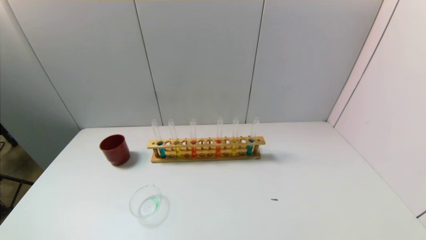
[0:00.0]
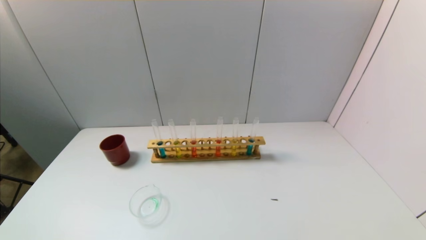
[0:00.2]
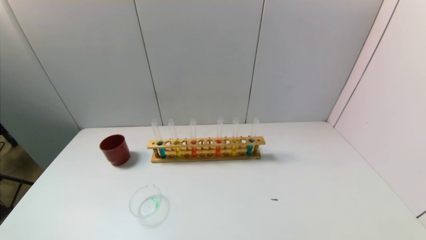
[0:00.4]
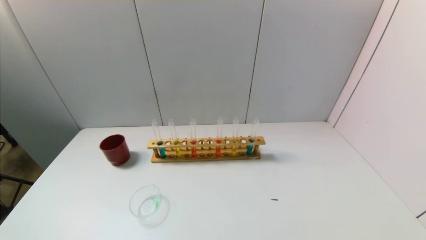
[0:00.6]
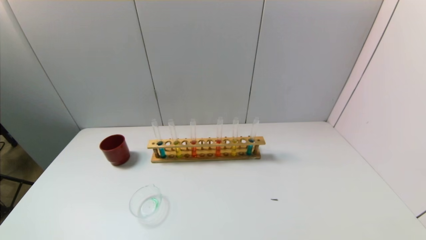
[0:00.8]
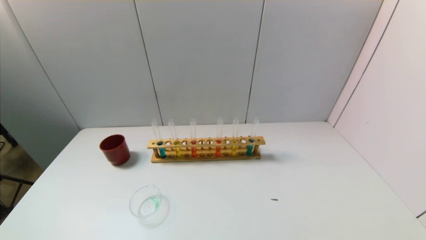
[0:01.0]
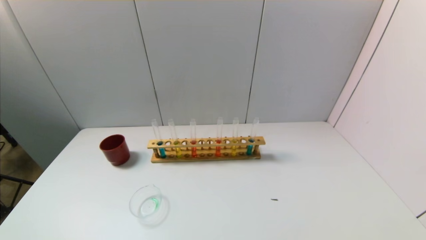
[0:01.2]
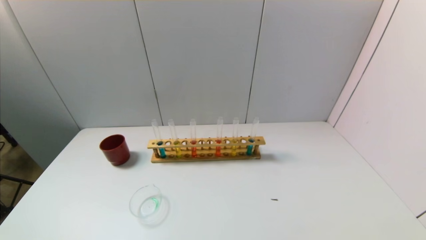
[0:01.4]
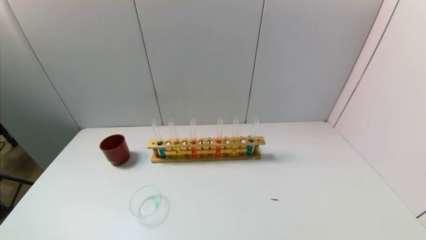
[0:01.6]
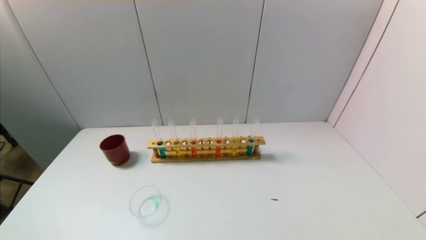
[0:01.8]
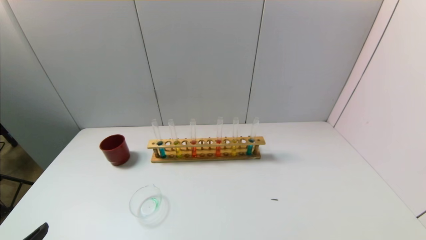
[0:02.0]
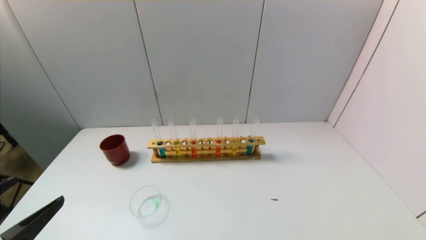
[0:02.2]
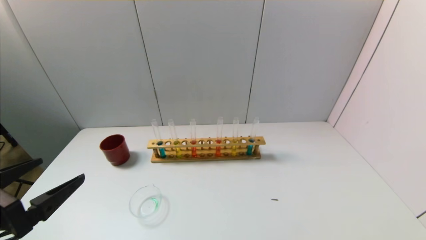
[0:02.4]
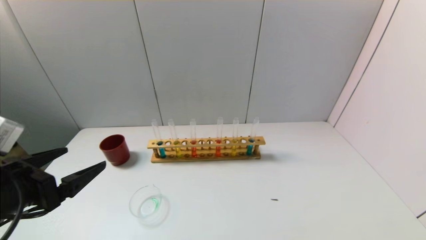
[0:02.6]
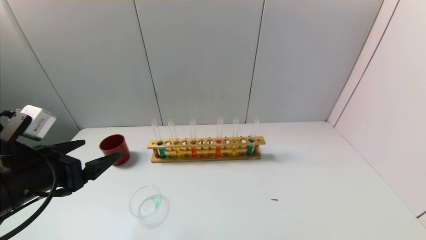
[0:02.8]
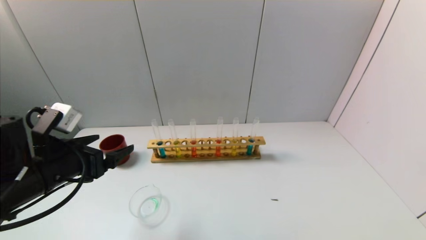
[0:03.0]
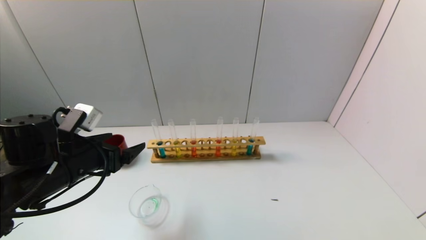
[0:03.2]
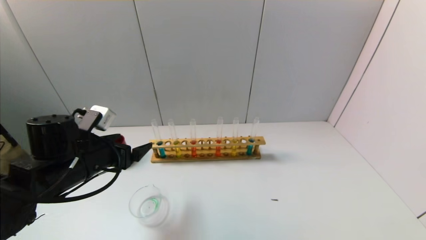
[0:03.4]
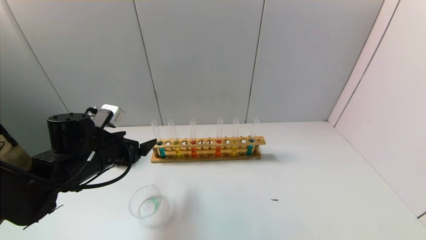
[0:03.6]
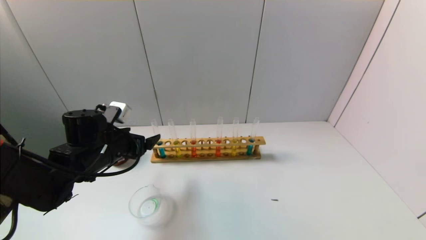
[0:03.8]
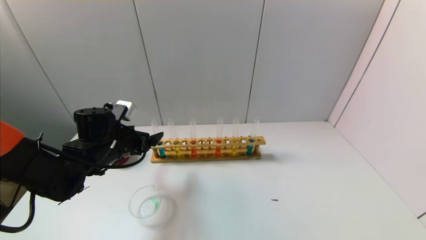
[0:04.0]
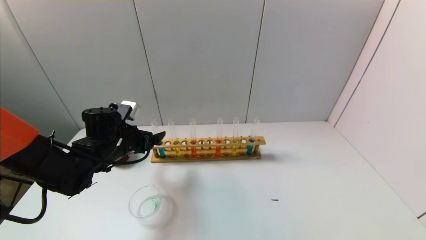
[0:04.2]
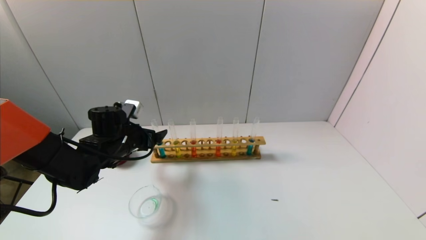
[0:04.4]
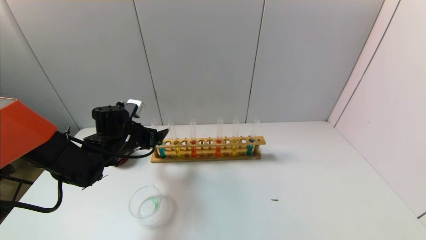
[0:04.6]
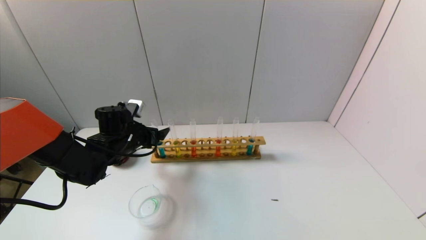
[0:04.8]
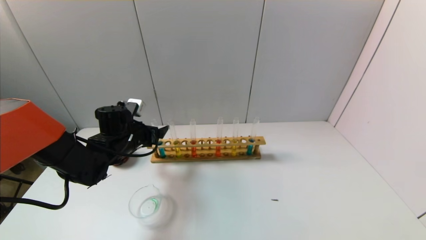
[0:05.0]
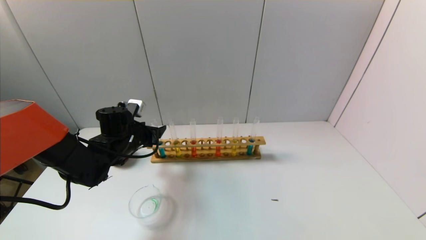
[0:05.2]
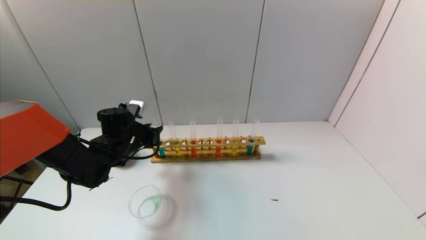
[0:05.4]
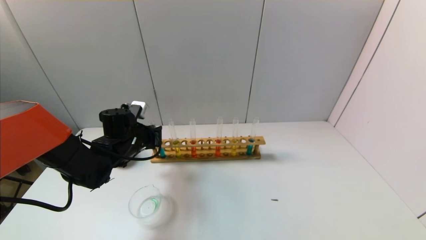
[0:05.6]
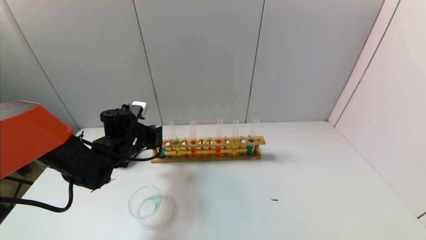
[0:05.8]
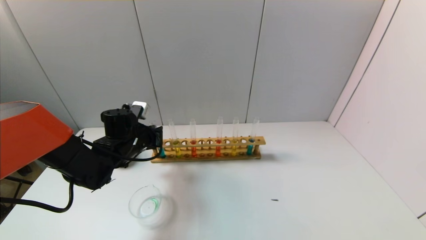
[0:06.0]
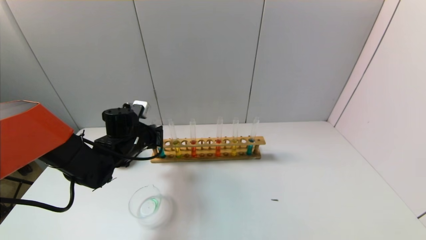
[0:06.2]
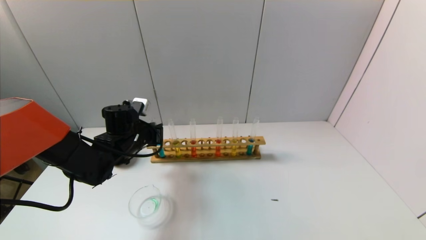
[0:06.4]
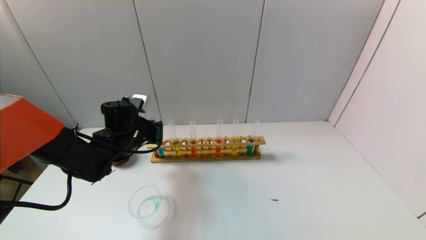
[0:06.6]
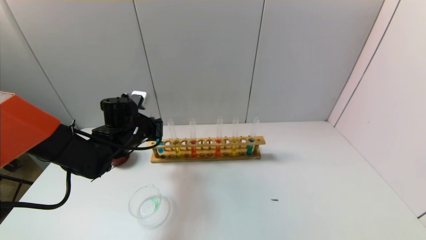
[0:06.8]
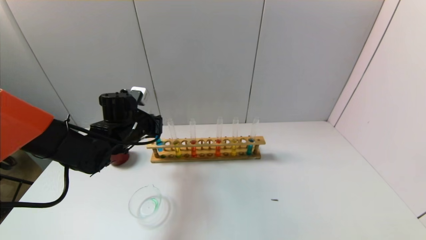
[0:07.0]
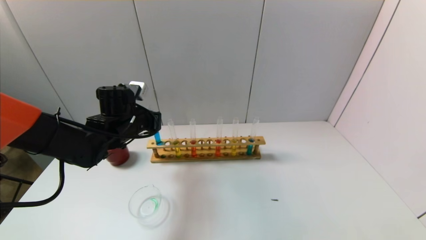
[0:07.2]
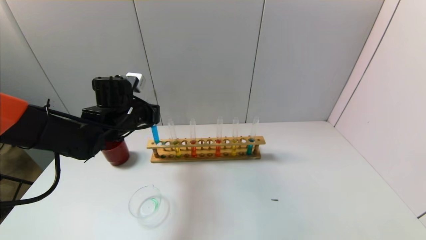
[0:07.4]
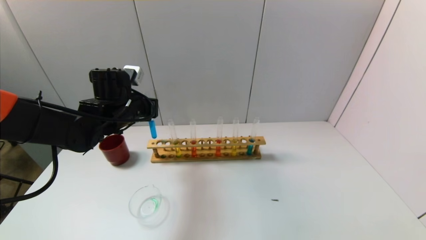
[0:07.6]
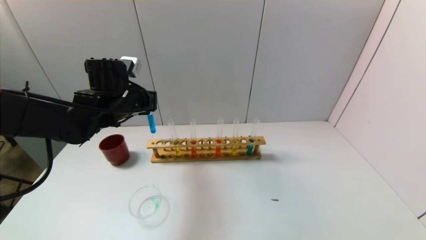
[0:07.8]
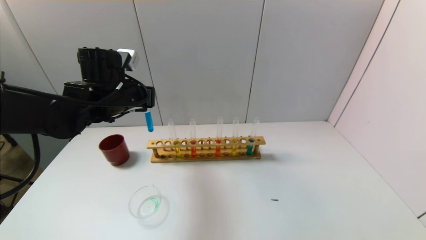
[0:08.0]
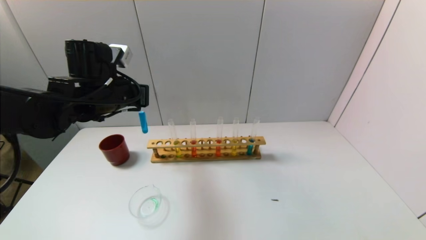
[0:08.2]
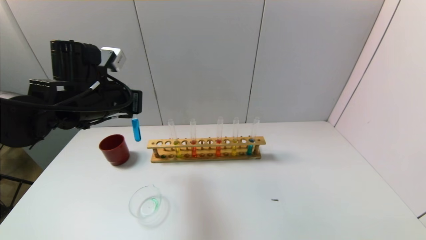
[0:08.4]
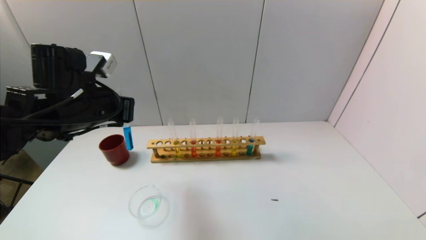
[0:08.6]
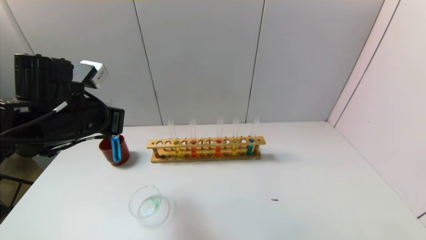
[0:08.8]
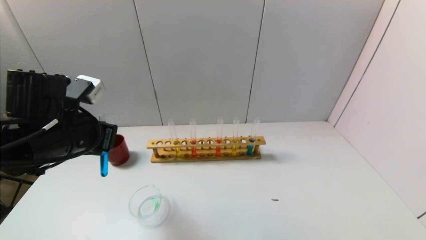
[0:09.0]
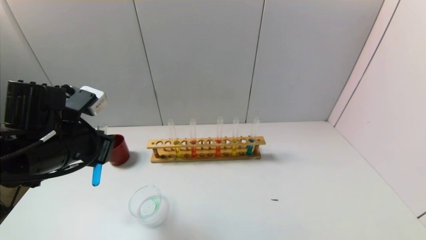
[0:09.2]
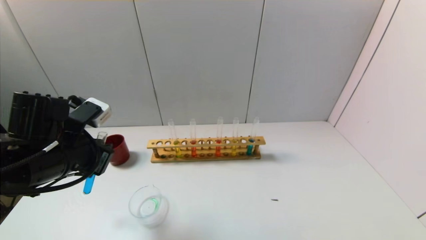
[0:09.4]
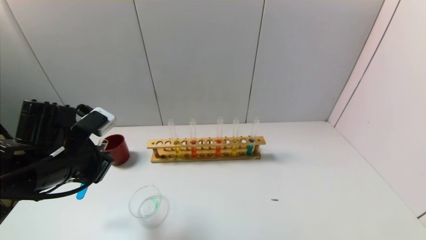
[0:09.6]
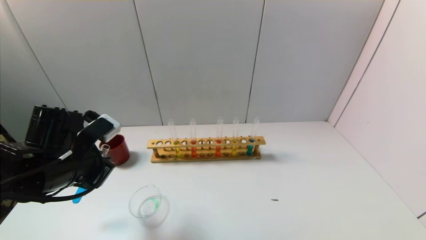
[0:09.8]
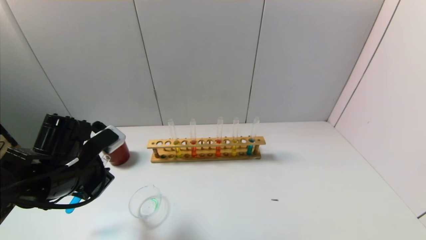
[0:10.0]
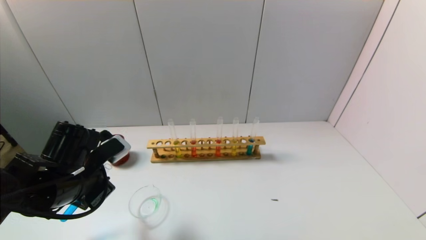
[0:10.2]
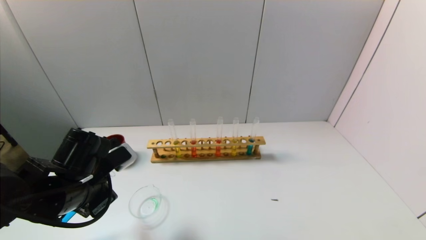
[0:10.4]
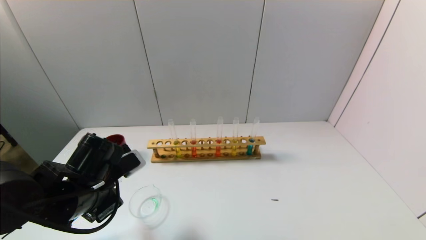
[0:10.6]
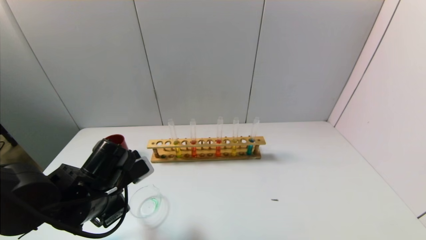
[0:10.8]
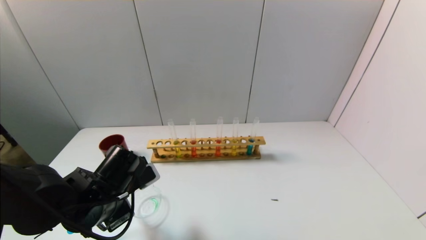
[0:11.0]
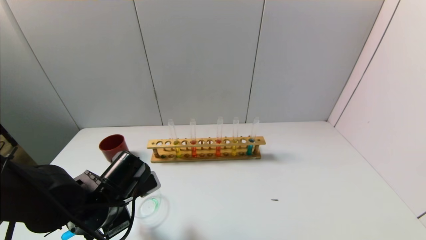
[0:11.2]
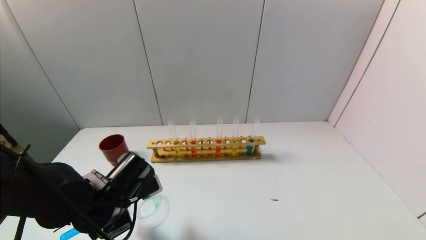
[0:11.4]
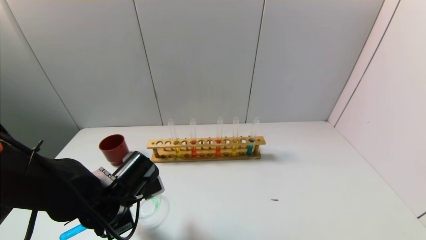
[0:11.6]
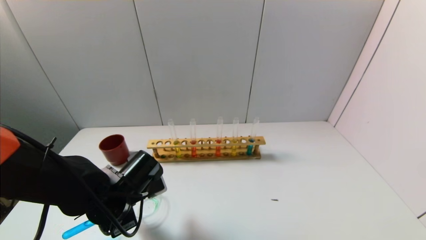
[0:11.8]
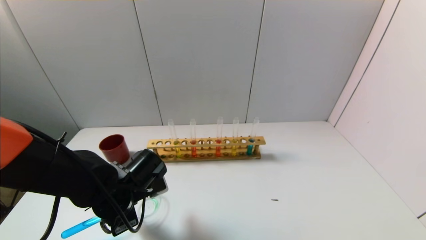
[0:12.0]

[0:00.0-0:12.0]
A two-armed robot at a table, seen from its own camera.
Task of the whole recording: pick up the test tube with yellow pigment and the test tube with blue pigment by grippers and pour them into the beaker.
Step, 0:00.0 to 0:05.6: Grasp the blue reagent with the left gripper.
0:01.6 to 0:03.0: The left gripper moves forward, some 20 cm.
0:03.0 to 0:04.4: The left gripper goes about 15 cm forward and downward.
0:04.4 to 0:06.0: The left gripper closes its fingers.
0:06.0 to 0:07.6: The left gripper travels upward by about 10 cm.
0:07.6 to 0:09.0: The left gripper heads backward, covering some 15 cm.
0:09.0 to 0:10.4: The left gripper shifts some 10 cm downward.
0:10.4 to 0:12.0: The left gripper is displaced downward and to the right by some 10 cm.

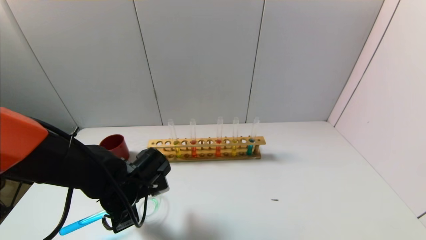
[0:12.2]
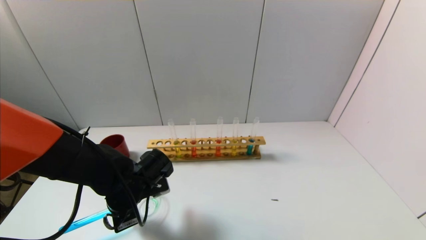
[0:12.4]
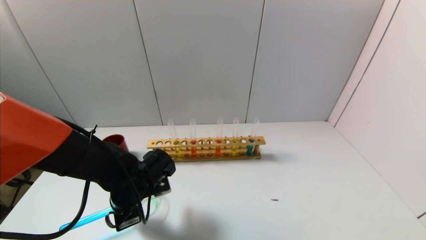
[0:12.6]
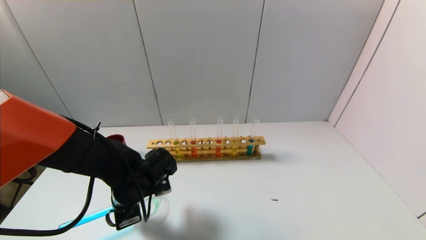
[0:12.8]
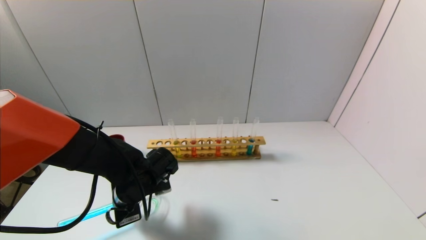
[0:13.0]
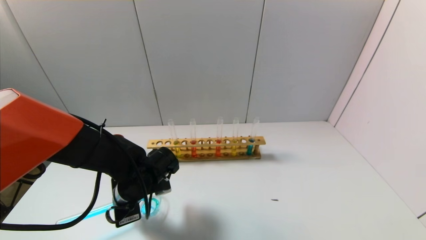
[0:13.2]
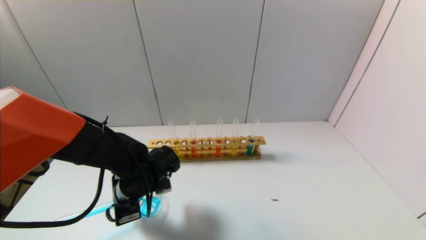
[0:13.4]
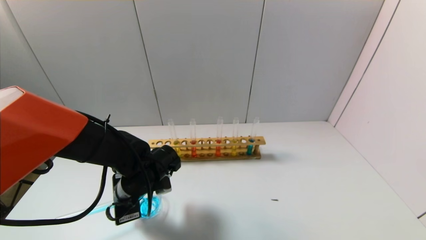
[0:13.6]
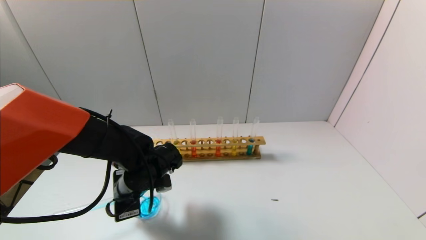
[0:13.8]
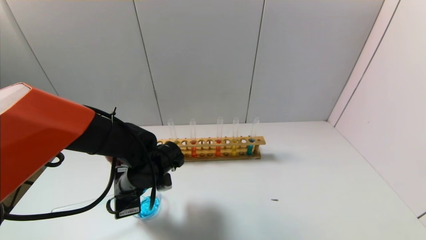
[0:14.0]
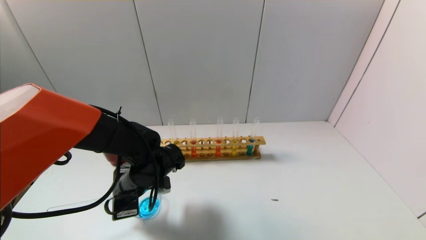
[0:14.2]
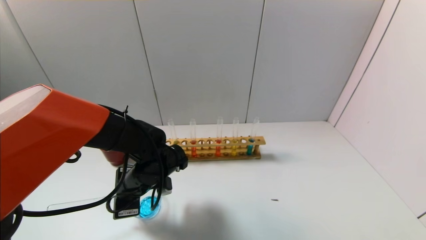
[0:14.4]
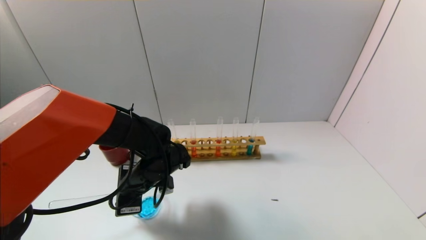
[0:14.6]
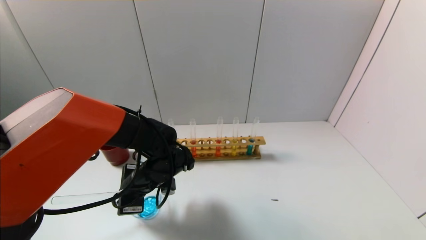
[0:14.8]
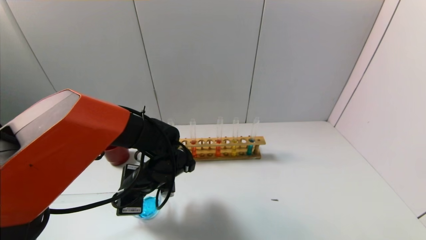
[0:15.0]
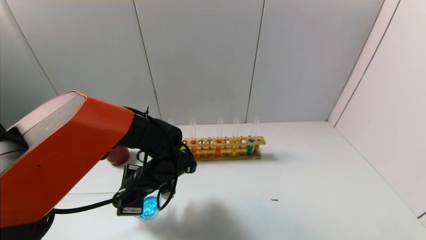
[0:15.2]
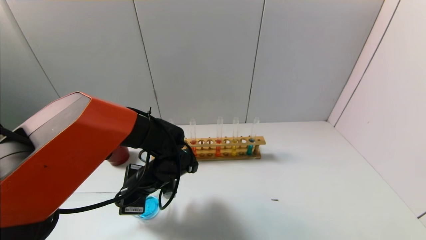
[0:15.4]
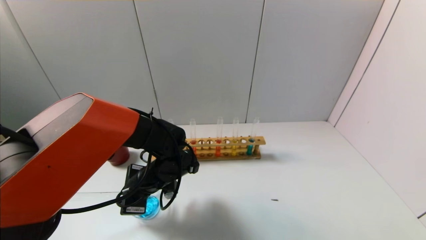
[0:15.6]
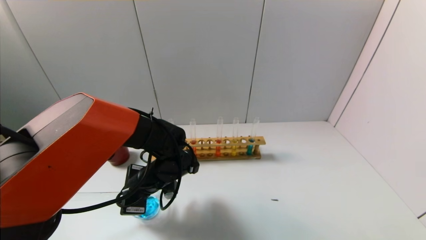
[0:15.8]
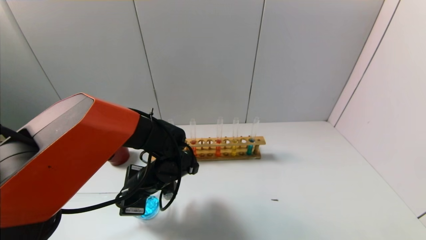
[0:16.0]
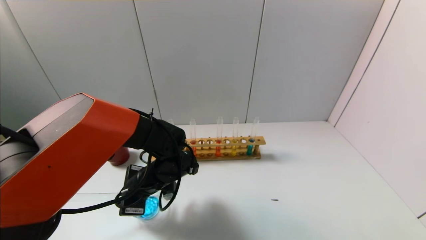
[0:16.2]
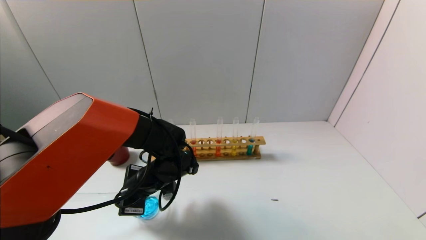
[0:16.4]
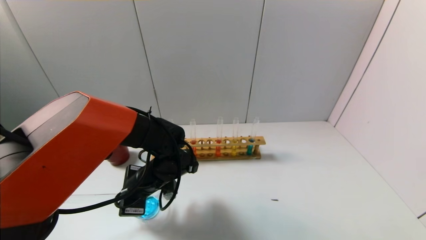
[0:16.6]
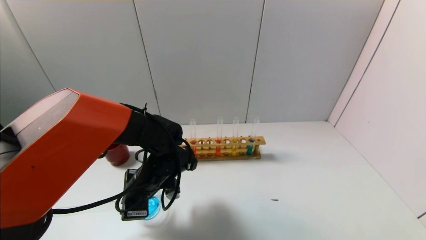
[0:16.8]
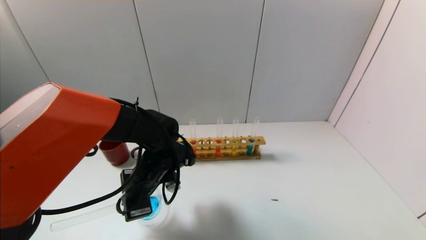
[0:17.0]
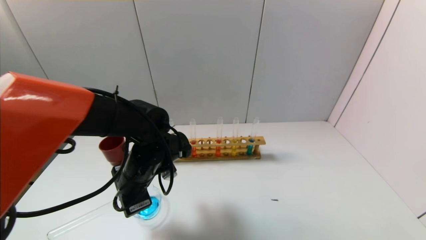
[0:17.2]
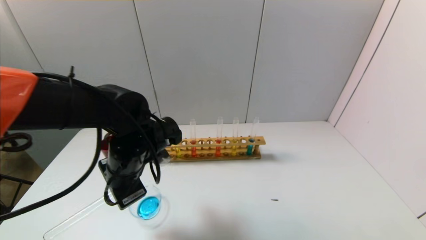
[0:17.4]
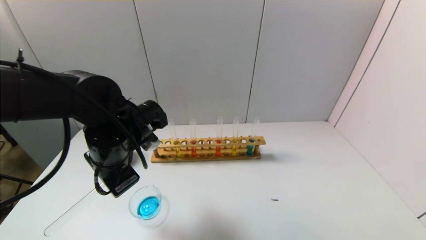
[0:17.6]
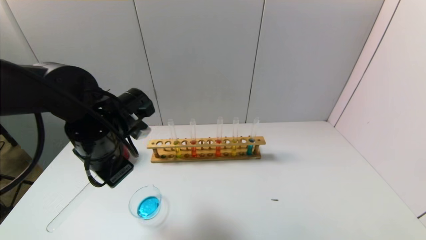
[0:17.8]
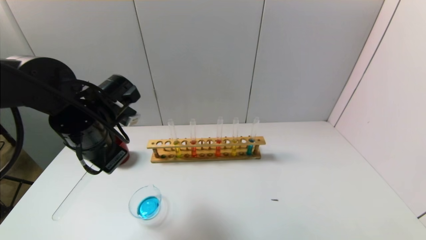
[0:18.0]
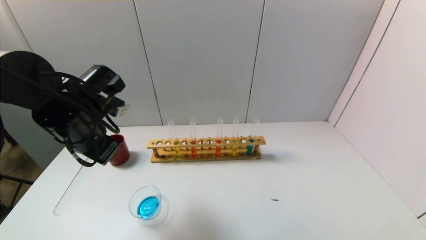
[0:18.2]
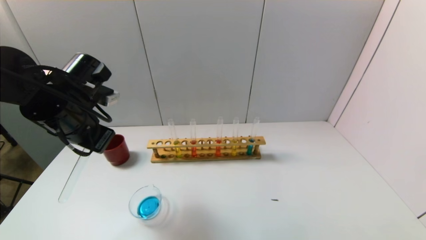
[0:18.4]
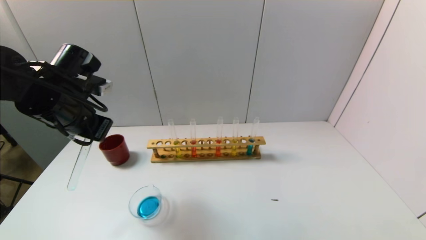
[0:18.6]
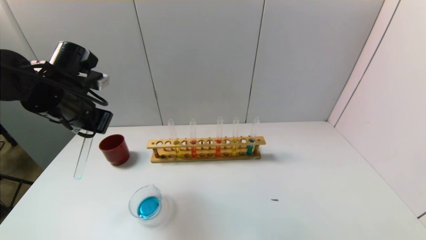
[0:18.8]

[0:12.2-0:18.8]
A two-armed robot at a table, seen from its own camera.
Task of the whole recording: pick up the test tube with yellow pigment and the test tube with blue pigment by grippers and pour them into the beaker.
Step, 0:12.2 to 0:14.4: Pour the blue reagent into the graduated cylinder with the left gripper.
0:12.2 to 0:13.8: The grippers move only a little.
0:13.8 to 0:15.4: There are only small adjustments of the grippers.
0:15.4 to 0:17.2: The left gripper moves approximately 5 cm.
0:17.2 to 0:18.8: The left gripper travels to the left and upward by some 15 cm.
